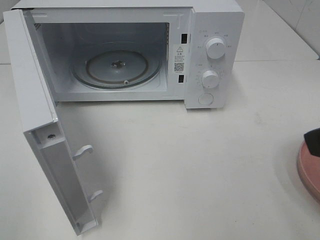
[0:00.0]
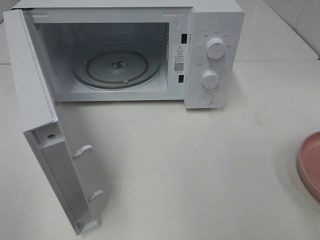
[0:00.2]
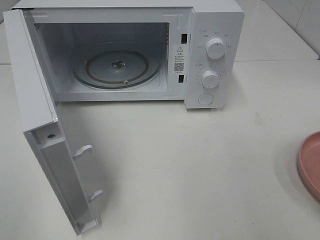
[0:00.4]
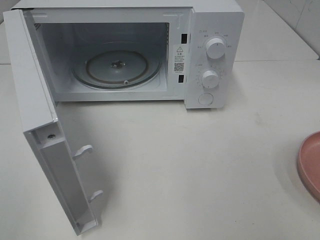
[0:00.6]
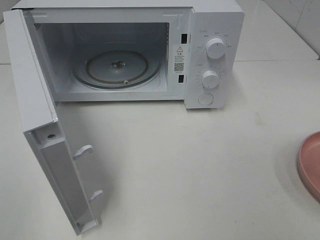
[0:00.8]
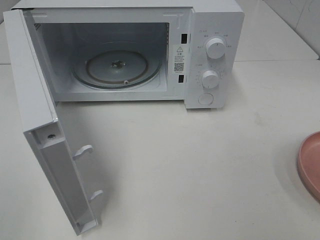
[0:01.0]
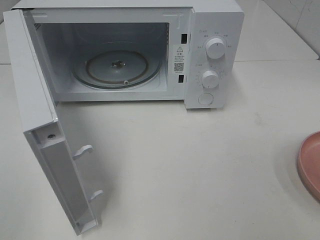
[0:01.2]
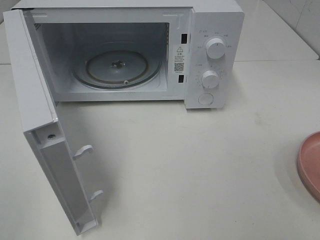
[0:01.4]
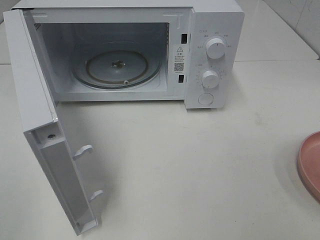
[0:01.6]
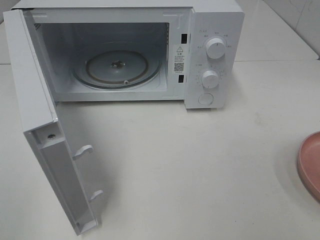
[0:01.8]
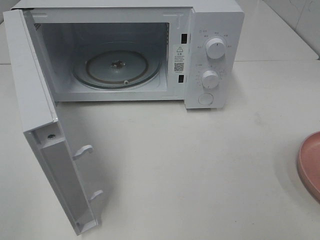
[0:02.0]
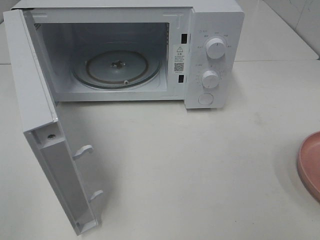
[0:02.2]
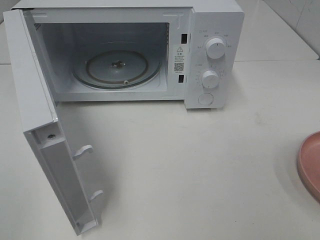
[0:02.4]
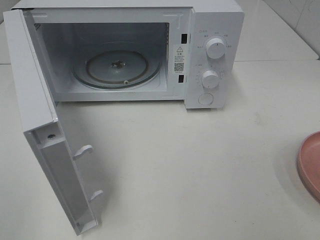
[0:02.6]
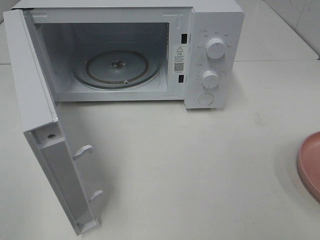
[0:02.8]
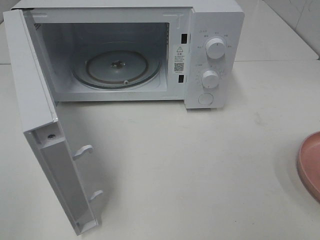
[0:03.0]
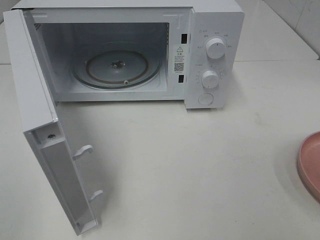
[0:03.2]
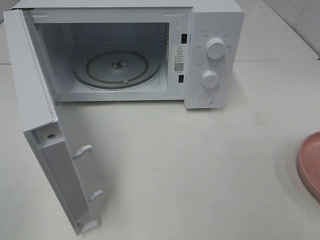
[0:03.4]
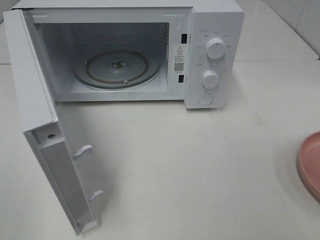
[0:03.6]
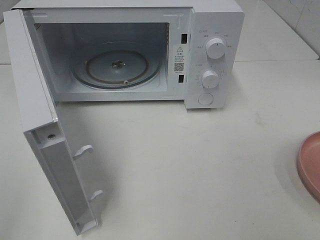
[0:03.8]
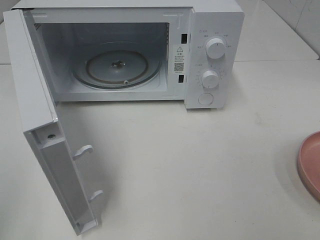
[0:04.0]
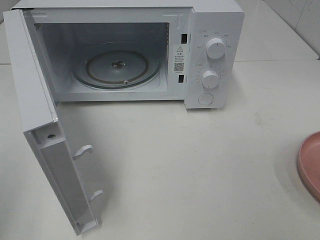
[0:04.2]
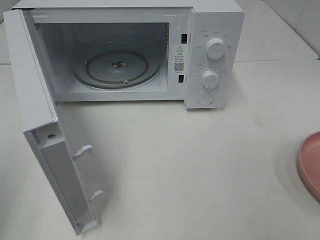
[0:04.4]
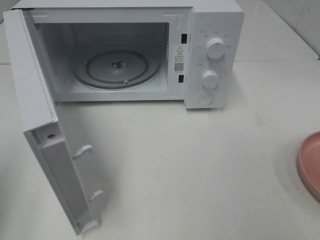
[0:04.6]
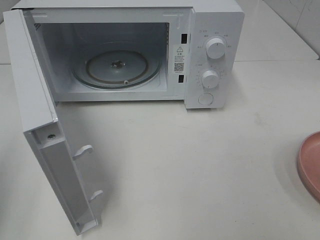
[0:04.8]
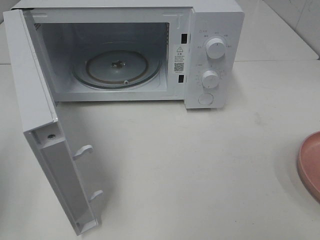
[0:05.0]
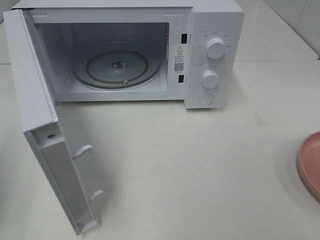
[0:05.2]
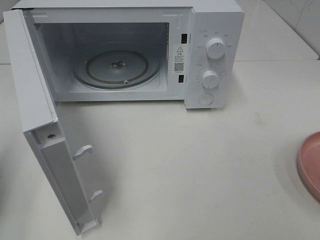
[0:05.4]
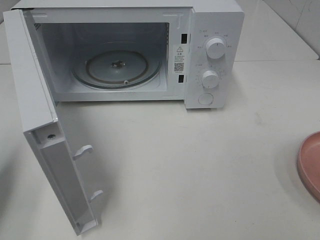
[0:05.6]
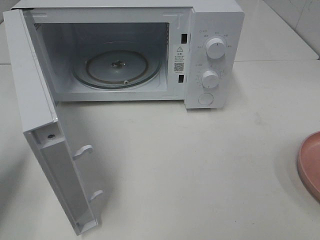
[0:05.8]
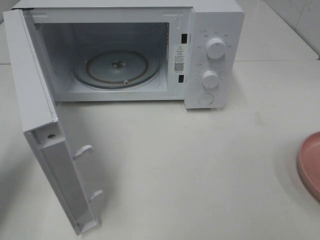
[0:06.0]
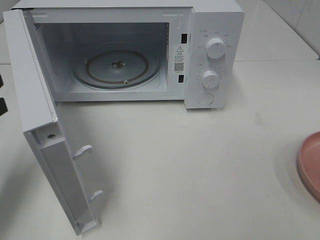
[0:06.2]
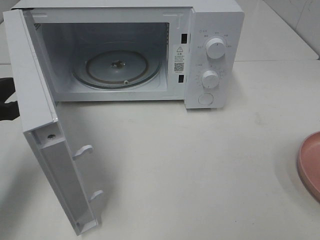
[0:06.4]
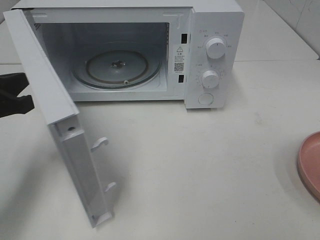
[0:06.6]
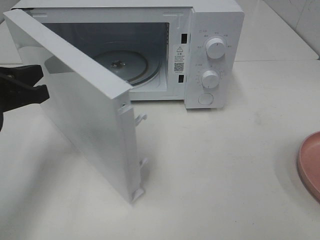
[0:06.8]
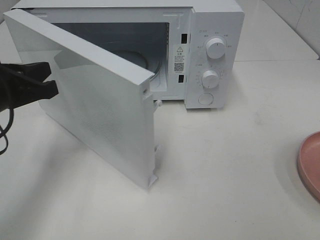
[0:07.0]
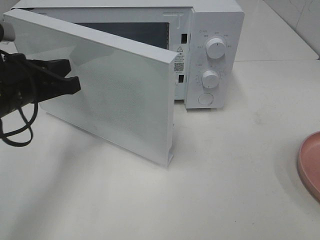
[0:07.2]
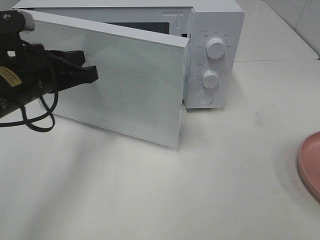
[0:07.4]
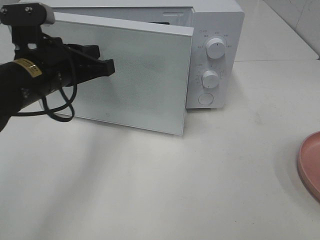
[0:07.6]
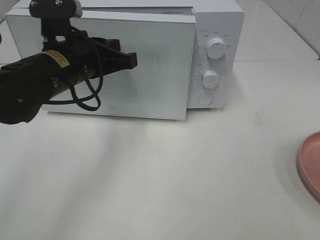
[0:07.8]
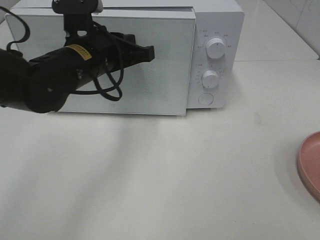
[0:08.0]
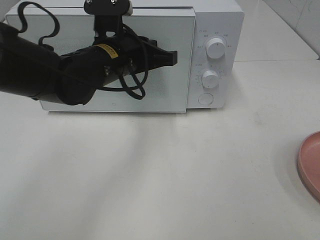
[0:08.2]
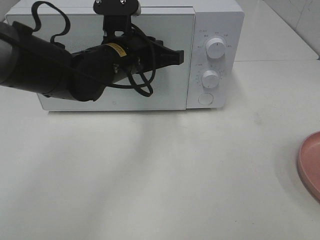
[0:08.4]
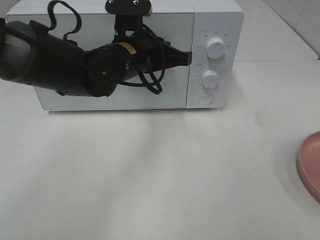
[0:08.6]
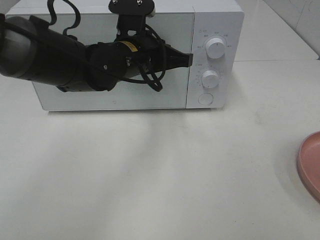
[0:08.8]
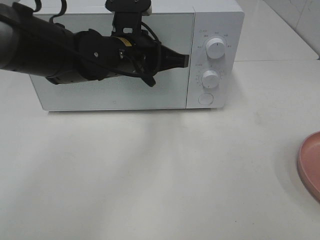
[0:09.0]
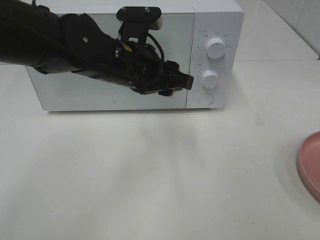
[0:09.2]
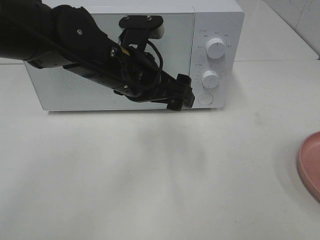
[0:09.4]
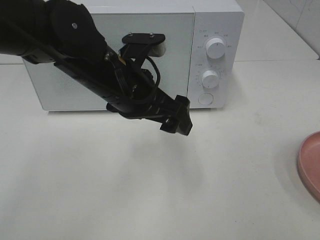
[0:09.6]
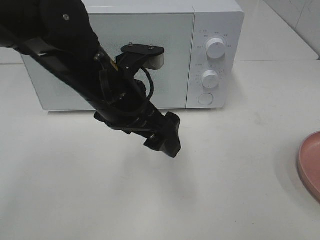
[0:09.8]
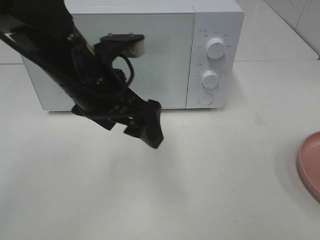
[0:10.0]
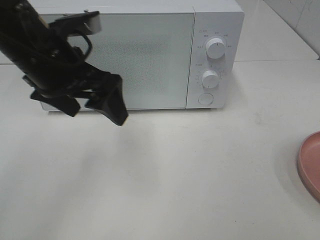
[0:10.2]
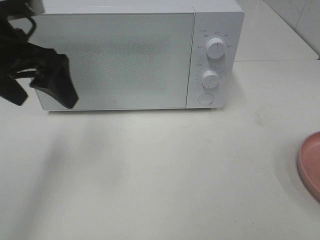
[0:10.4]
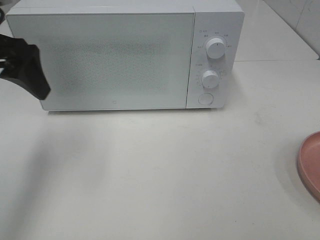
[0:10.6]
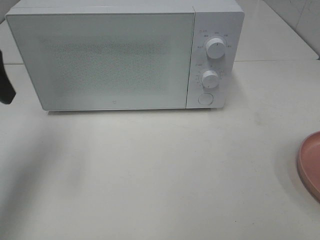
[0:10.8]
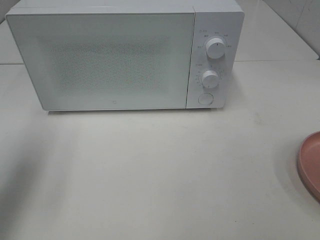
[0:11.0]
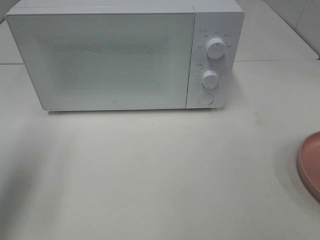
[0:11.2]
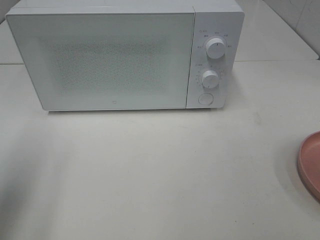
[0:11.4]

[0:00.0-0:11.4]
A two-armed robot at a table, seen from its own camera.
Task of the whole recording: Heat the burger.
Step, 0:00.0 to 0:09.0: Left hand: close the microwave door.
0:01.4 to 0:02.8: Neither gripper changes place.
0:04.2 to 0:05.6: The left gripper heads forward and downward, covering roughly 15 cm.
0:05.6 to 0:07.2: The left gripper moves to the right and forward, about 15 cm.
0:07.2 to 0:08.6: The left gripper shifts about 20 cm to the right and forward.
0:08.6 to 0:10.0: The left gripper goes some 10 cm backward, and opens.
0:10.0 to 0:11.4: The left gripper shifts about 25 cm to the left and backward.

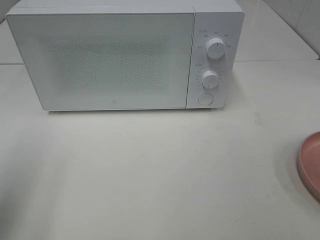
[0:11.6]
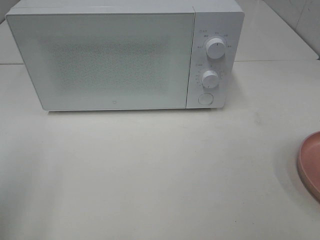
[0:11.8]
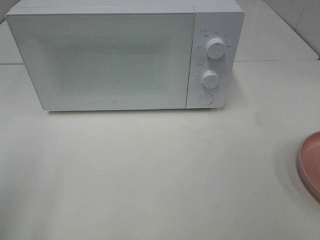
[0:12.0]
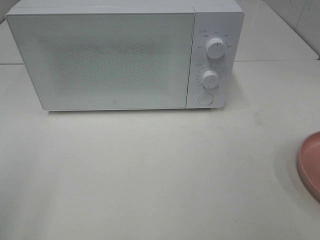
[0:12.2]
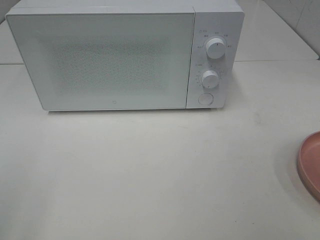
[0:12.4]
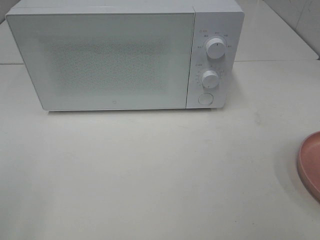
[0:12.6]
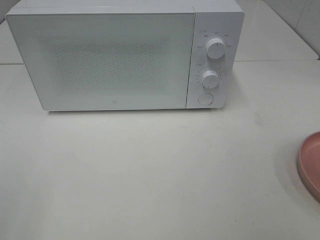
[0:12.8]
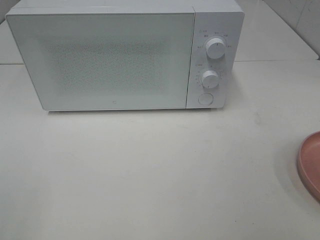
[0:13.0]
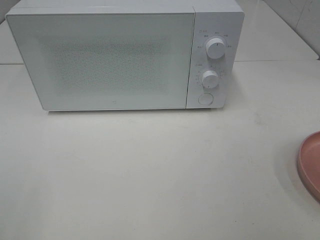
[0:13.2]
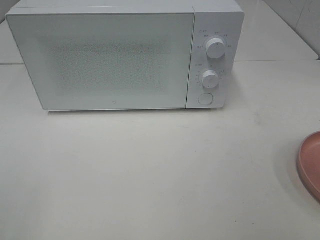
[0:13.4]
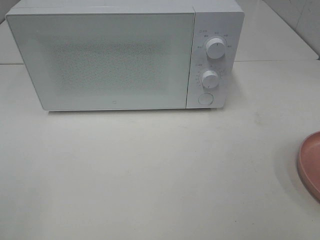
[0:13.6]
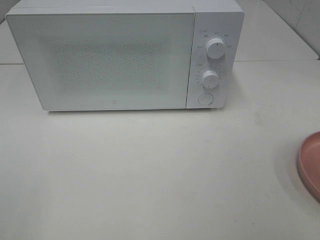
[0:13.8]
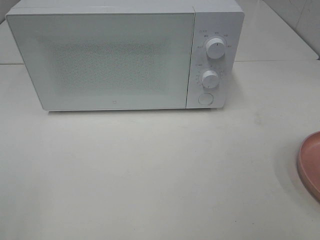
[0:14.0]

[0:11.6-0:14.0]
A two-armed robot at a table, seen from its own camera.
Task of the whole recording: Heat the burger.
0:11.6 to 0:12.8: The left gripper heads backward, covering some 10 cm.

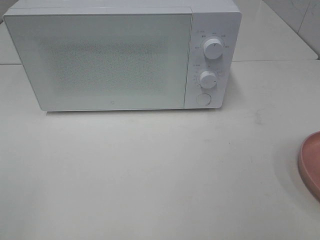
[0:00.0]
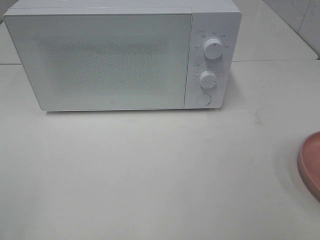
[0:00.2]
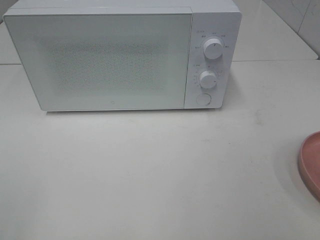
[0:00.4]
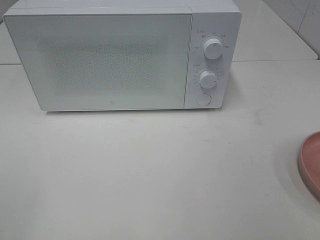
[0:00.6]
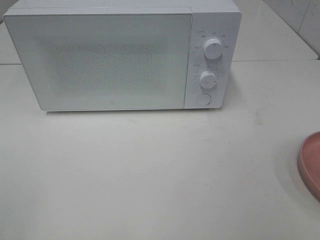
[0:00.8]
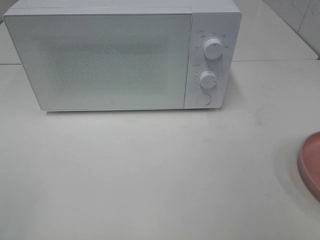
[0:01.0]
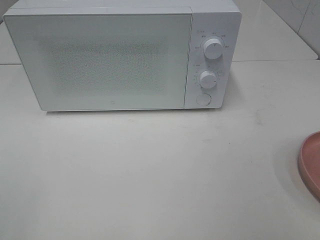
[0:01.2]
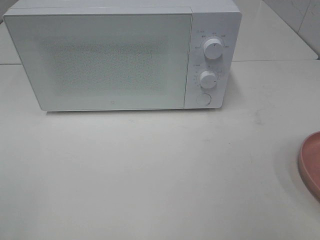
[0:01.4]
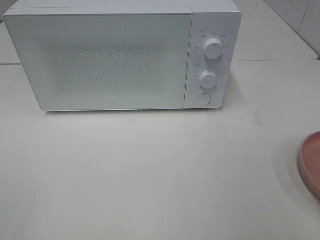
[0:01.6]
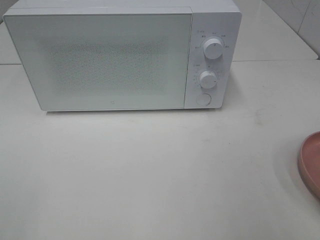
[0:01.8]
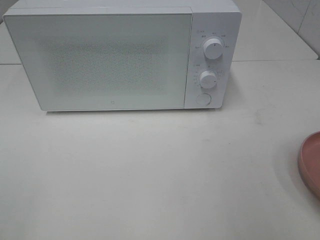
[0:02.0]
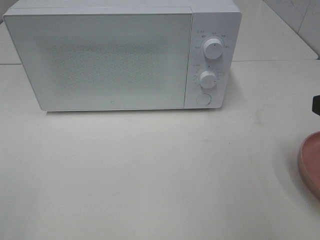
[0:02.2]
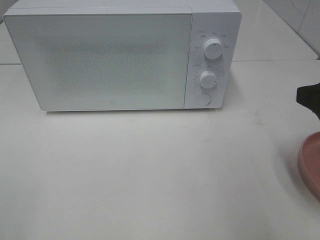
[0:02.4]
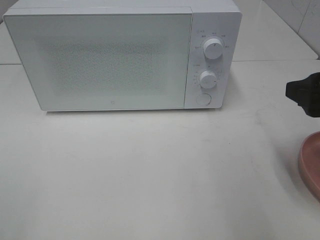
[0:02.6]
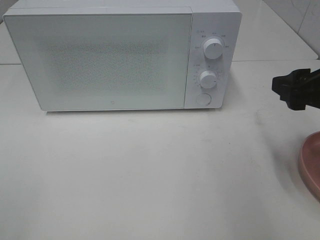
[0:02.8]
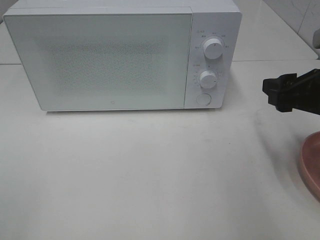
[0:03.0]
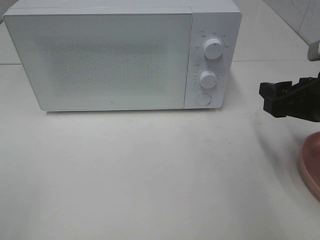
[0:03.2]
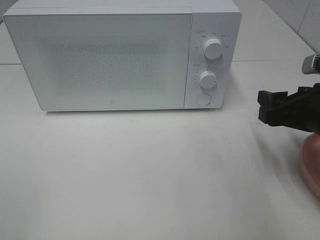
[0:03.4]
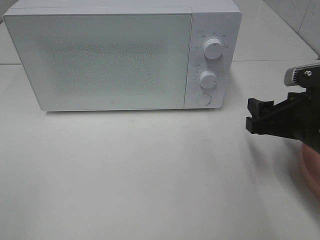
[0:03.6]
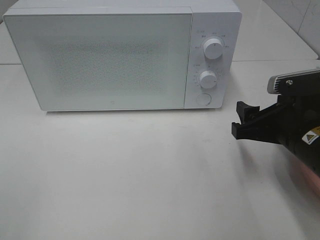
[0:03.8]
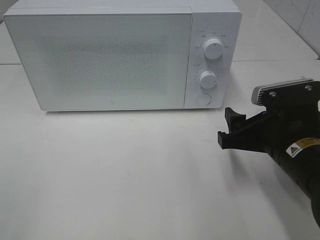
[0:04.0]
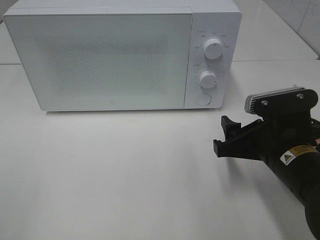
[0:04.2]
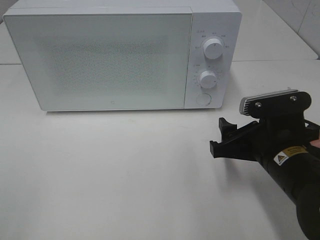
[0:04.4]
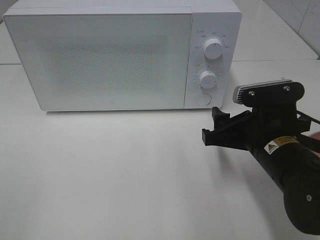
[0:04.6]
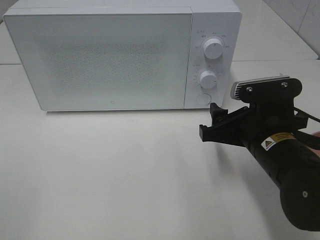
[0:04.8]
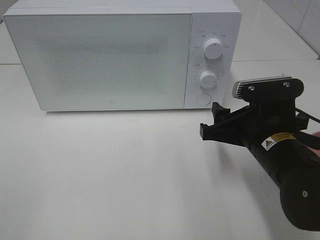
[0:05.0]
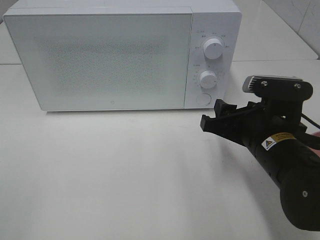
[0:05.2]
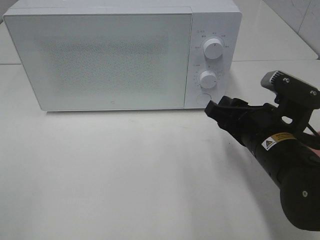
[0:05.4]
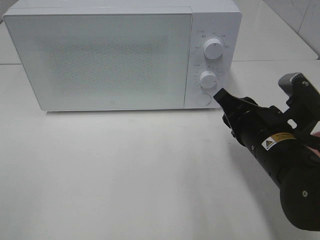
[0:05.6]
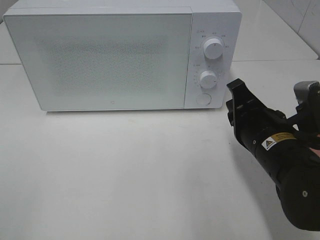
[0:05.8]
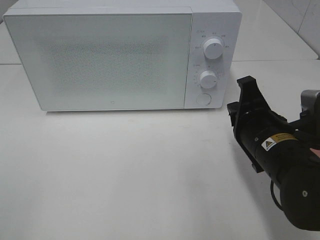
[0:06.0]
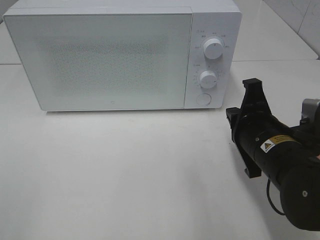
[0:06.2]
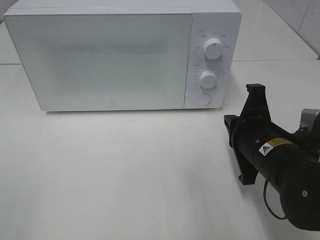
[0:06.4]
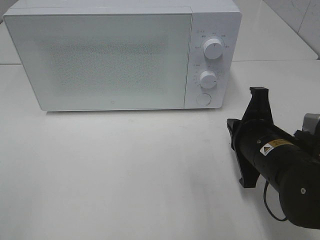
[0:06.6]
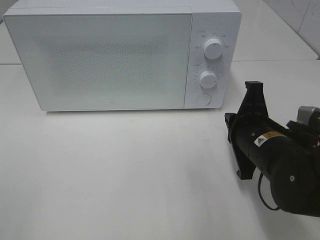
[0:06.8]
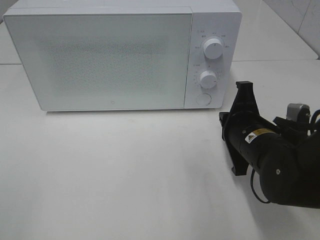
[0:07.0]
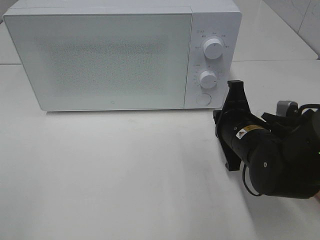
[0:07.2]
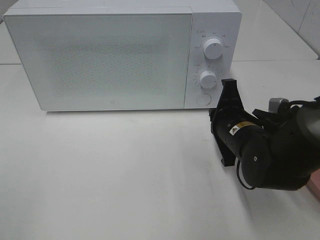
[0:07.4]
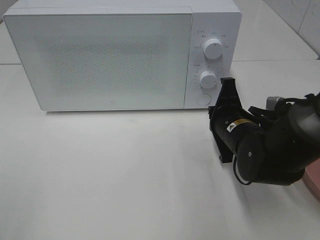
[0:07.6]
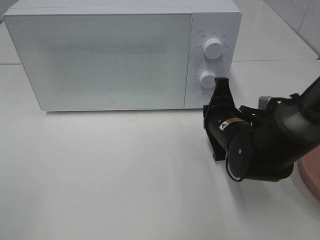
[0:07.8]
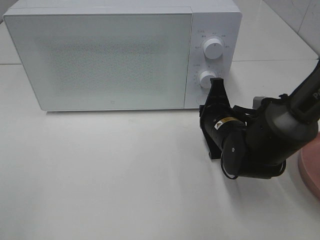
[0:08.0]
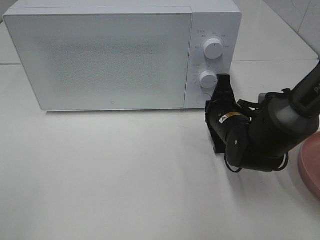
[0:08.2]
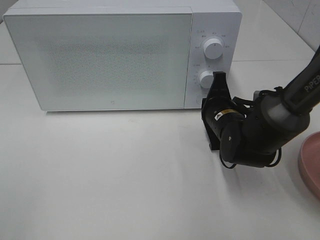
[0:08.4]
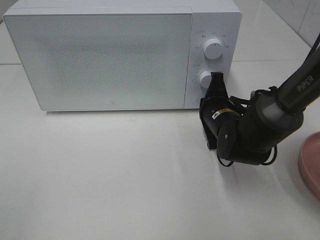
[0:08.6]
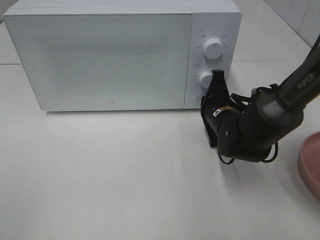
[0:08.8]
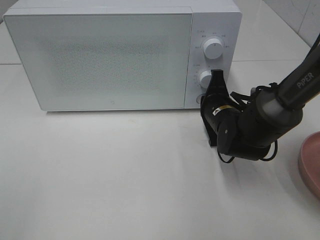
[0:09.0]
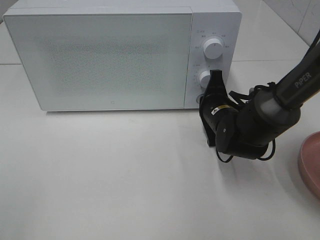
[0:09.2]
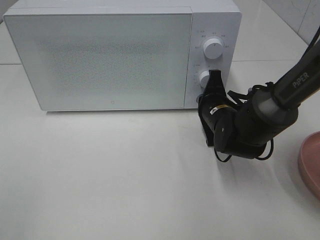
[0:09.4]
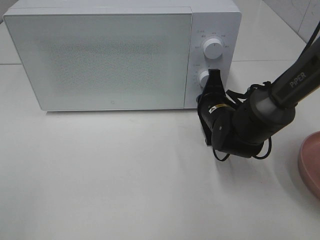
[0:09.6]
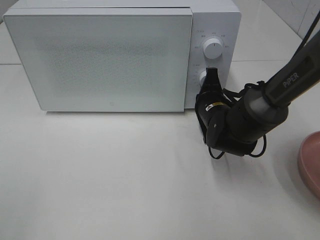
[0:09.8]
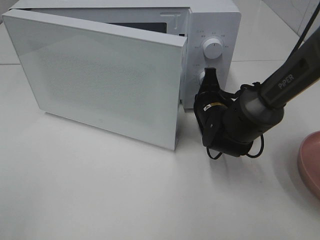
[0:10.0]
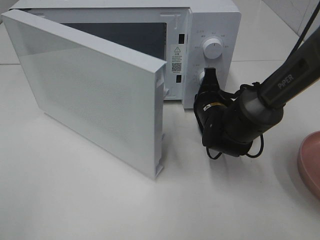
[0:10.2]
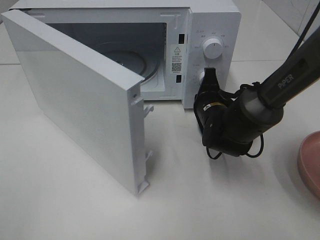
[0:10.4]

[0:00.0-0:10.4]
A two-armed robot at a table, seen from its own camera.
Task of the whole recording: Heat the burger.
0:01.4 to 0:03.0: The right gripper goes roughly 15 cm forward and downward.
0:03.0 to 0:04.4: The right gripper travels downward and to the left by some 10 cm.
0:04.4 to 0:06.0: The right gripper closes up.
0:06.0 to 0:07.4: The right gripper goes roughly 5 cm forward.
0:07.4 to 0:09.0: The right gripper heads forward, covering roughly 5 cm.
